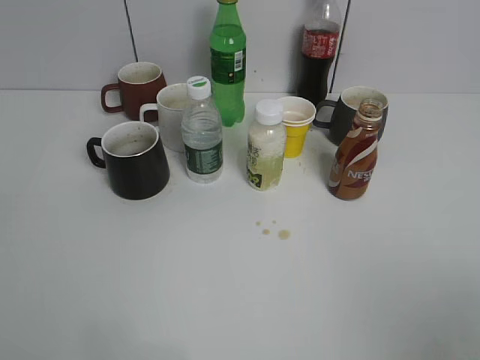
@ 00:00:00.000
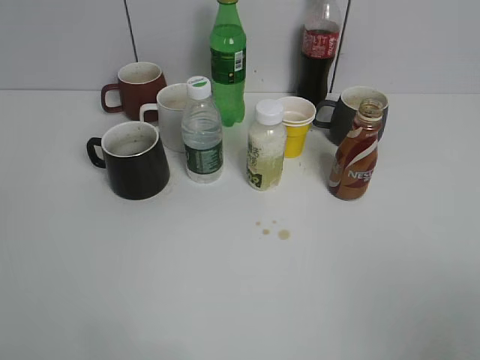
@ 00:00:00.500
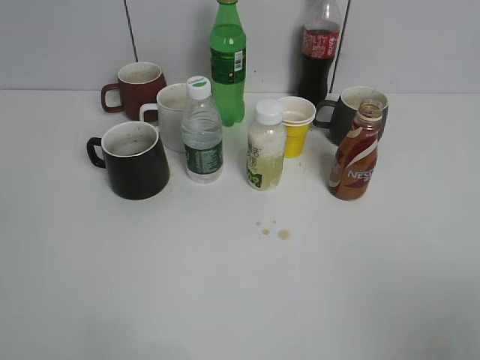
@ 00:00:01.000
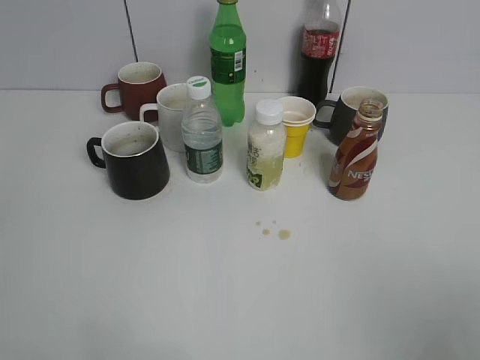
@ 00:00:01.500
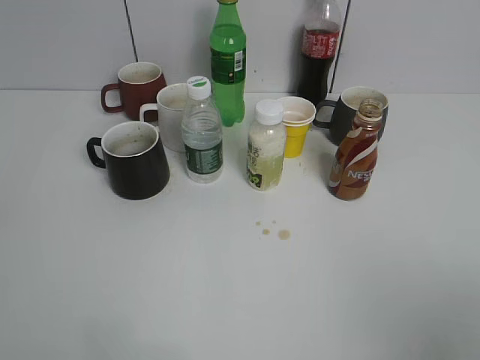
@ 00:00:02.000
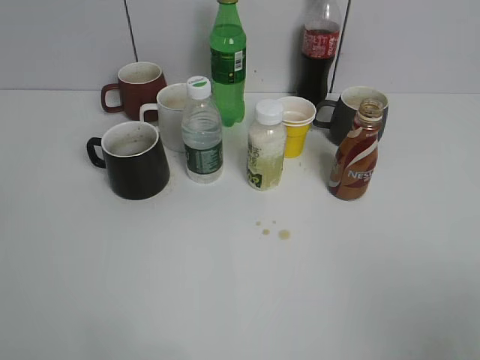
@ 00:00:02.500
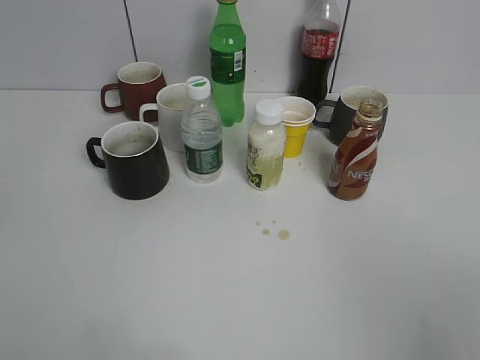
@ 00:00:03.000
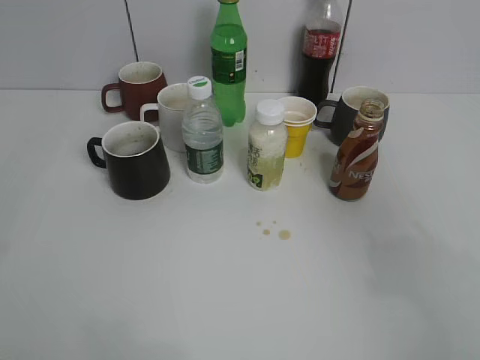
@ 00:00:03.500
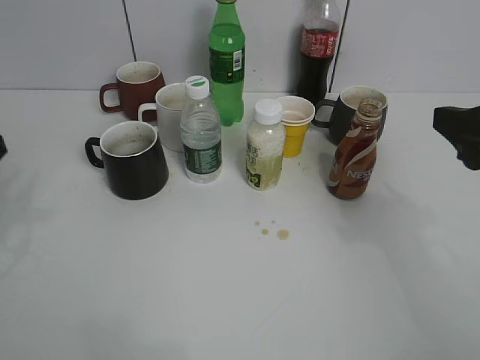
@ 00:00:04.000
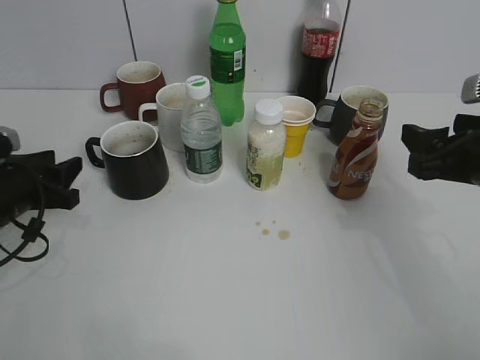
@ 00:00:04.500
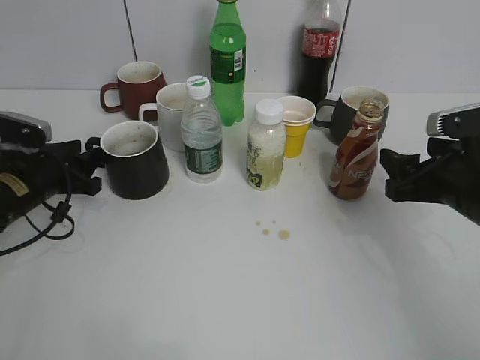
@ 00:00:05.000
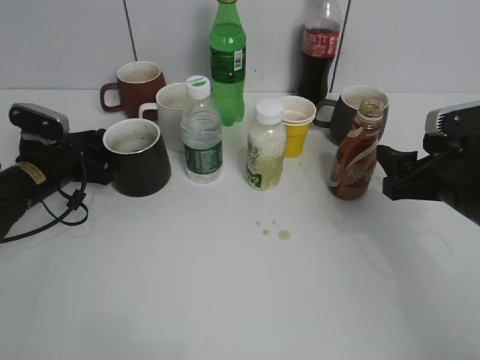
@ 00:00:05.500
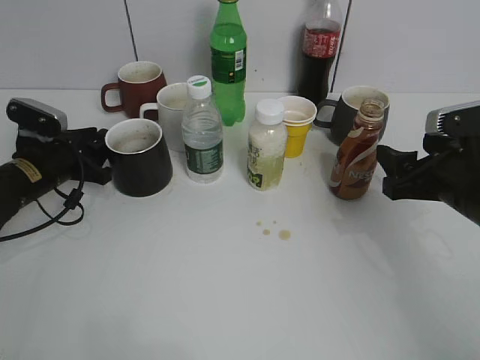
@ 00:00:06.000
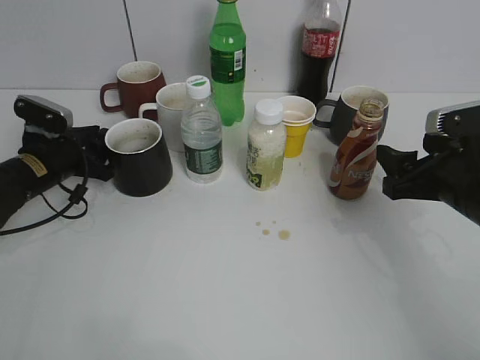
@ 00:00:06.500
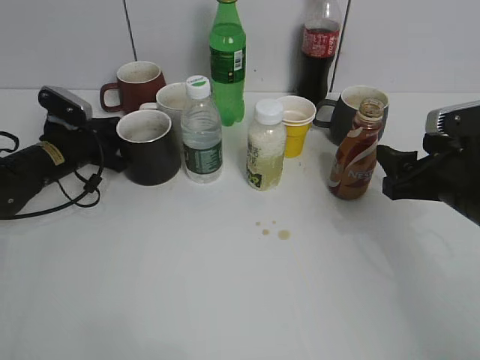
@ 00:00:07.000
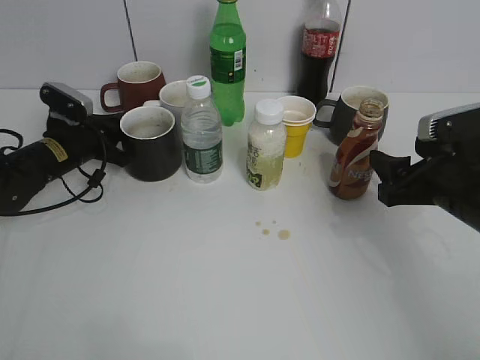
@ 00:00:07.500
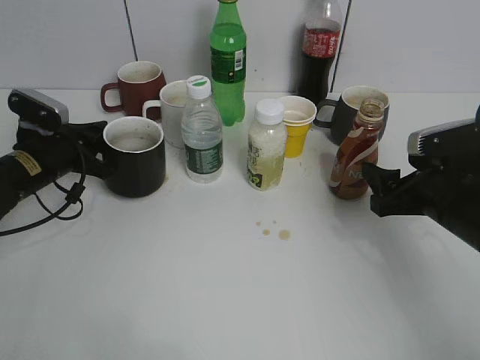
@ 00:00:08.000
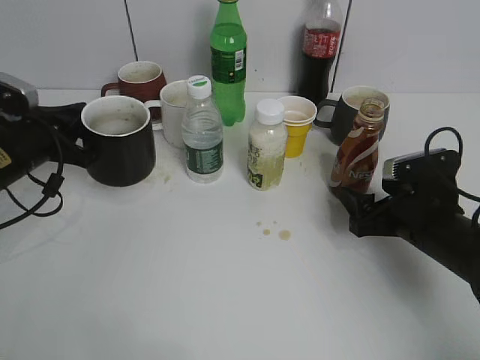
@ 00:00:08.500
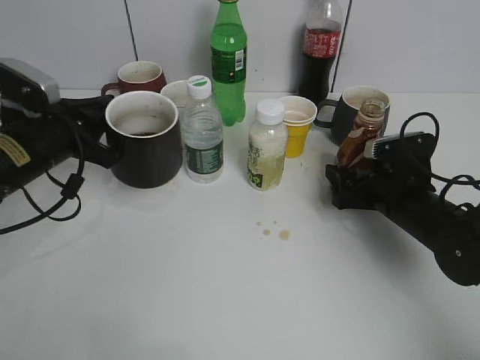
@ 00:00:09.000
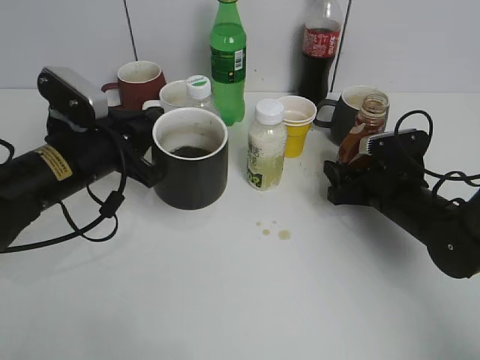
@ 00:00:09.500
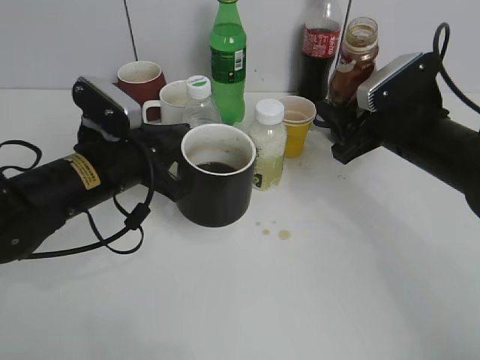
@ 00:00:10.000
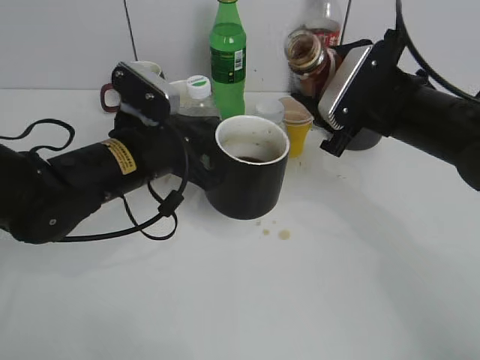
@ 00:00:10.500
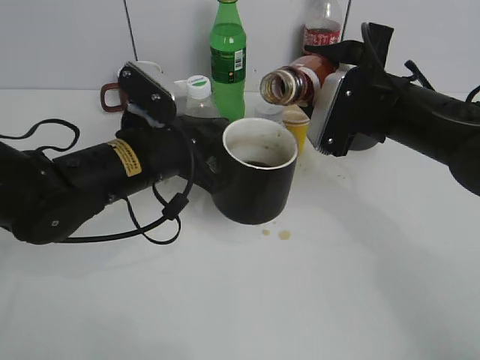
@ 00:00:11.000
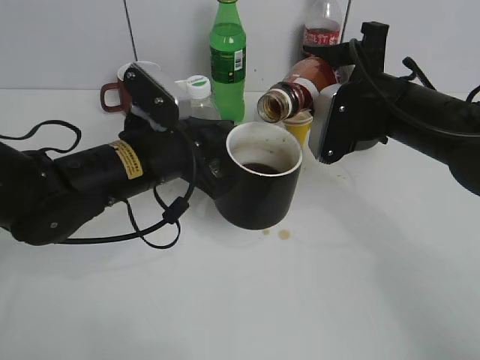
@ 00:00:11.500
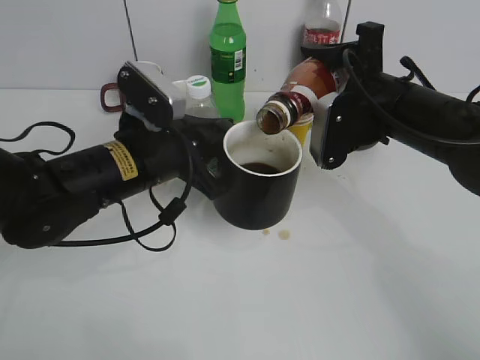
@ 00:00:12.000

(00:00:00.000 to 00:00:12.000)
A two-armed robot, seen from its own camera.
Step, 00:00:03.000 - 00:00:07.000: Grasp the black cup with left gripper.
Step, 00:00:08.000 - 00:00:09.000: Lift the black cup with left gripper.
00:00:02.000 - 00:00:04.000: Both grippers move forward, some 20 cm.
00:00:04.000 - 00:00:06.000: The right gripper is displaced downward and forward by some 10 cm. The left gripper travels forward and downward by about 20 cm.
00:00:06.000 - 00:00:08.000: The left gripper closes its fingers.
00:00:08.000 - 00:00:10.000: The left gripper moves to the right, backward and upward, some 15 cm. Meanwhile the right gripper moves forward, roughly 5 cm, and closes.

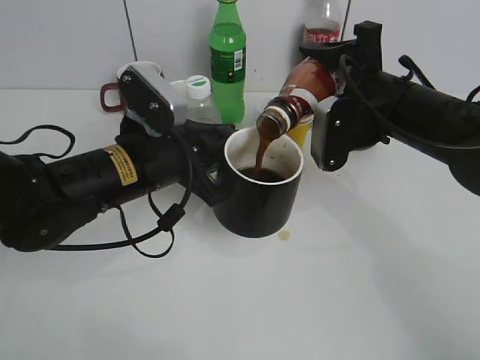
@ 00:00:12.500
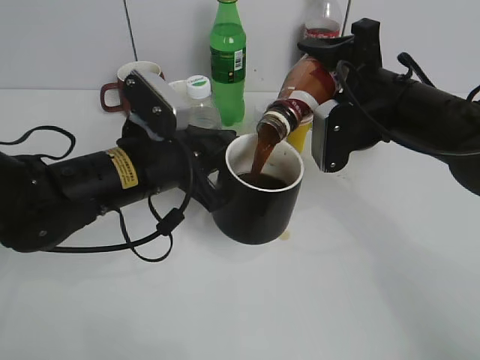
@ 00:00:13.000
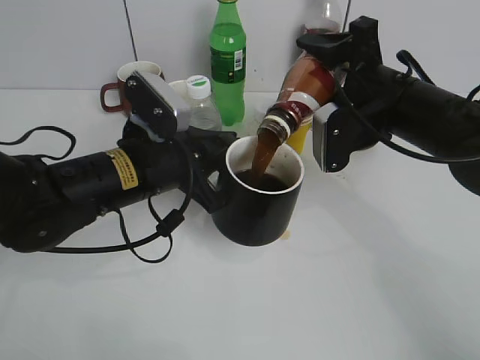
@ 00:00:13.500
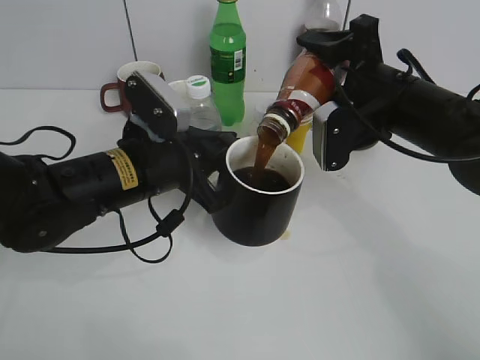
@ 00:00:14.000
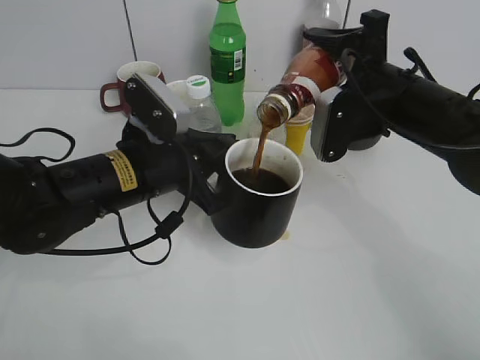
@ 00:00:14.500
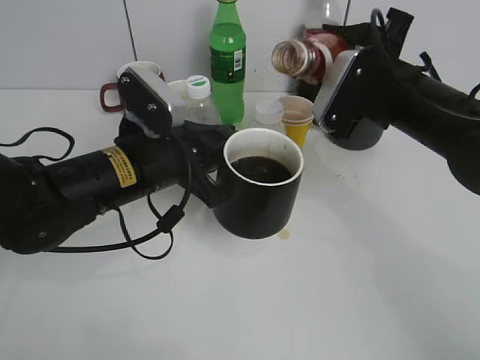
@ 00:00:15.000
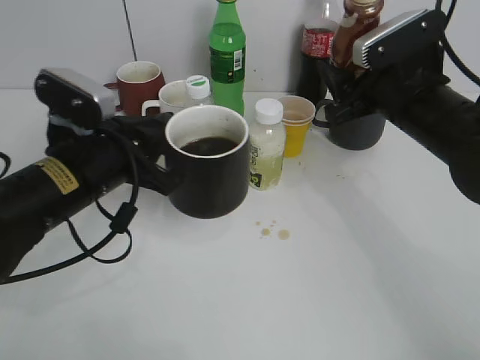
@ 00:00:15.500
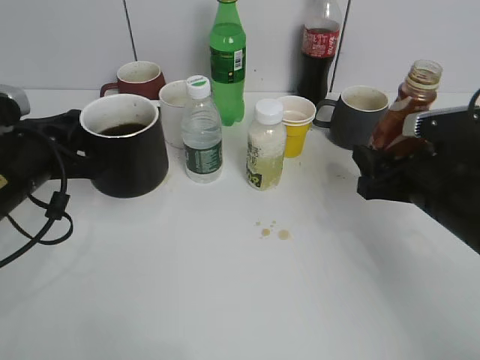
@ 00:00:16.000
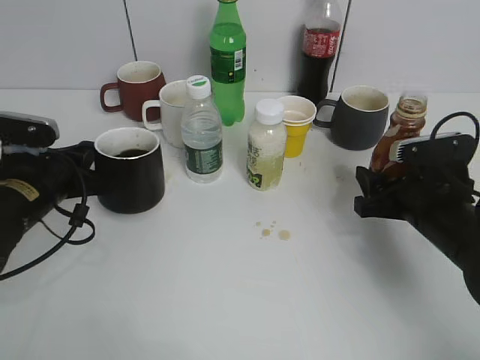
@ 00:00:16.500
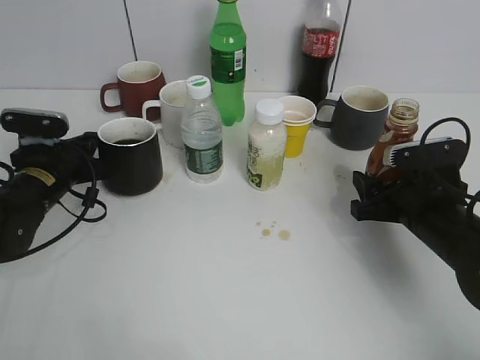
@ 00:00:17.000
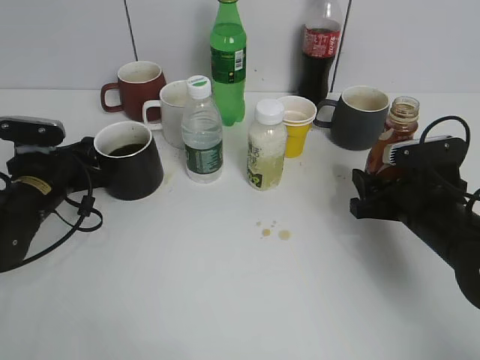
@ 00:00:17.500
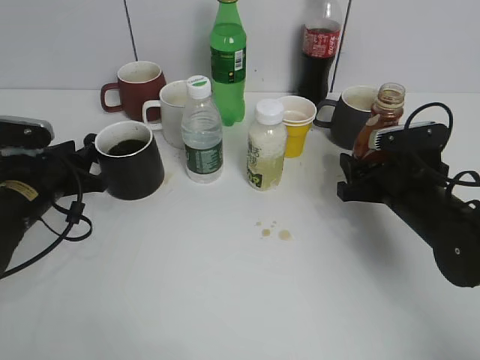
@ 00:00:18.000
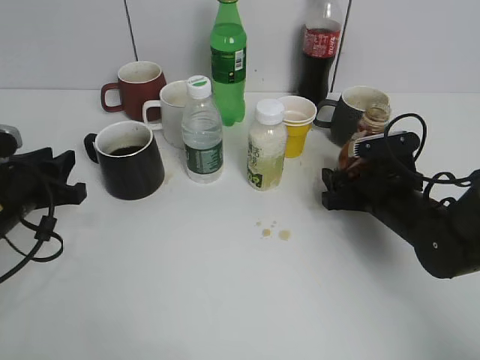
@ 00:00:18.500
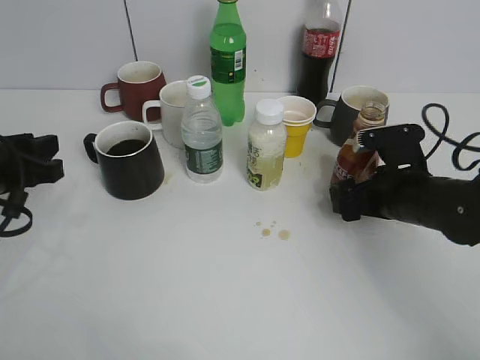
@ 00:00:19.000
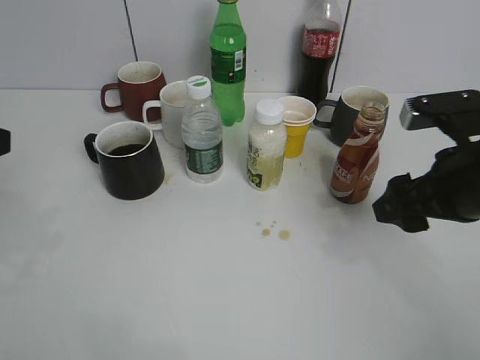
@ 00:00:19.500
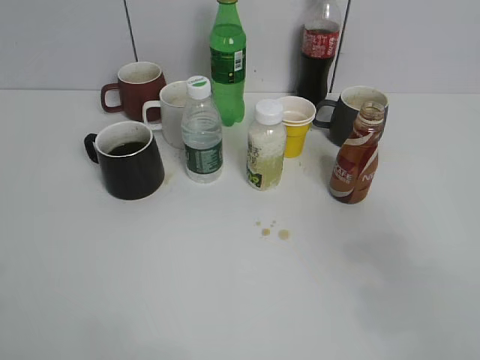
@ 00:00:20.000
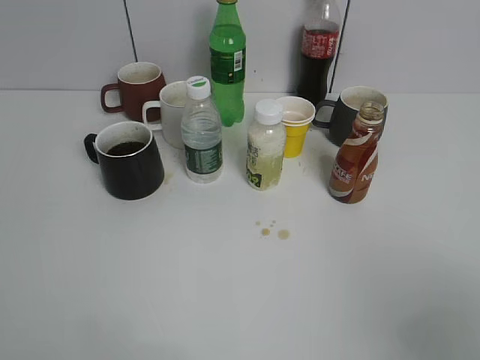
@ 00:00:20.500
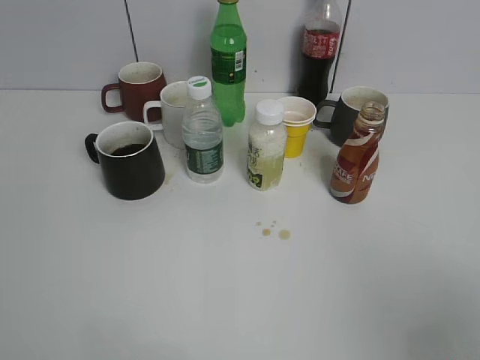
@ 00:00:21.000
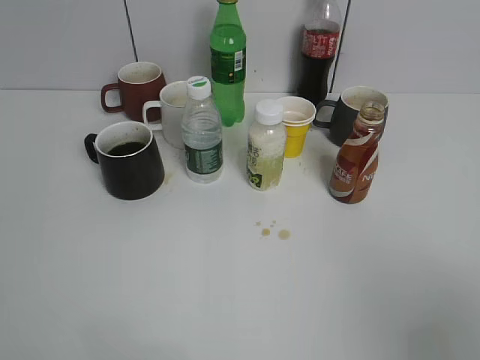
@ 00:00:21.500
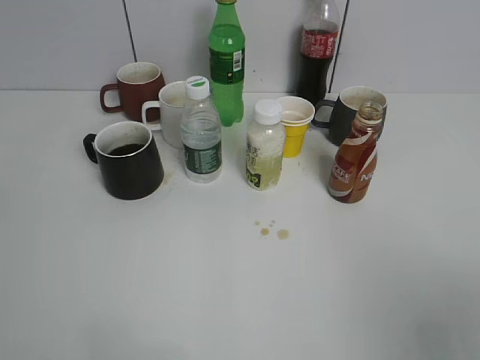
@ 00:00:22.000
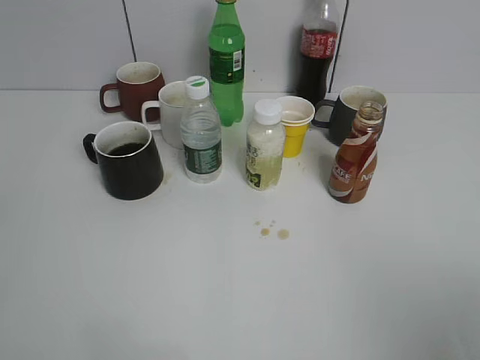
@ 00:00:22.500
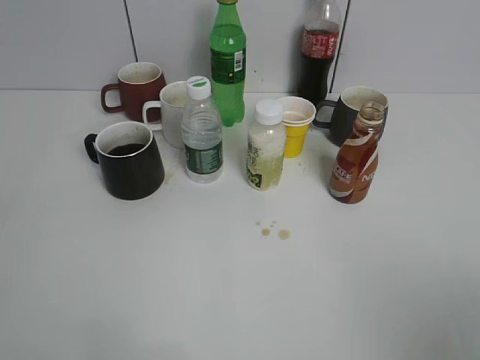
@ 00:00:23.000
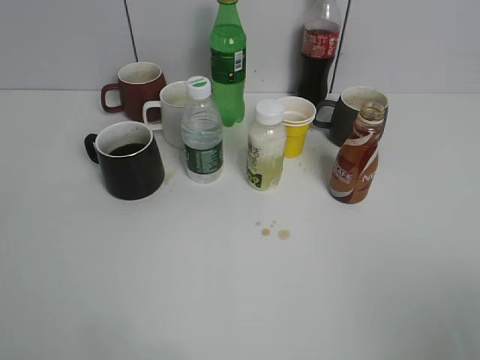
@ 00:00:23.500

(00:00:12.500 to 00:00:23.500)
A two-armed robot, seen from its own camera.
Step, 00:00:12.500 - 00:00:15.000: Pour the coffee from bottle to cup with right gripper.
Step, 00:00:15.500 - 00:00:19.000: Place the coffee bottle on the table with right gripper.
00:00:12.500 - 00:00:14.500: There are only small adjustments of the grippers.
00:00:14.500 - 00:00:16.000: The right gripper shifts approximately 10 cm downward, backward and to the right; the left gripper is displaced to the left by some 10 cm.
00:00:16.000 - 00:00:18.000: The left gripper goes some 10 cm downward and forward, and opens, while the right gripper shifts by roughly 5 cm.
00:00:18.000 - 00:00:20.000: The two grippers go approximately 30 cm upward and backward. The right gripper opens.
00:00:20.000 - 00:00:21.500: The right gripper moves backward, about 10 cm.
